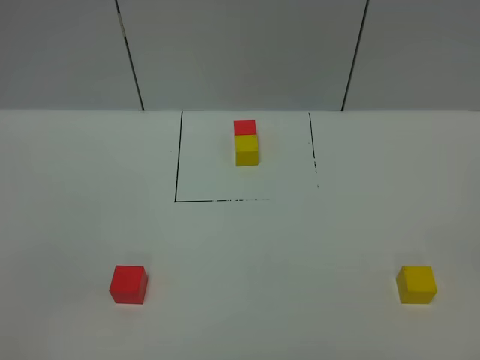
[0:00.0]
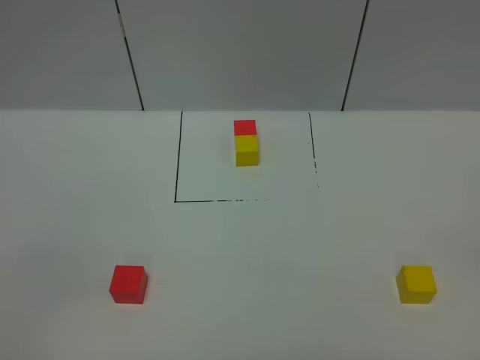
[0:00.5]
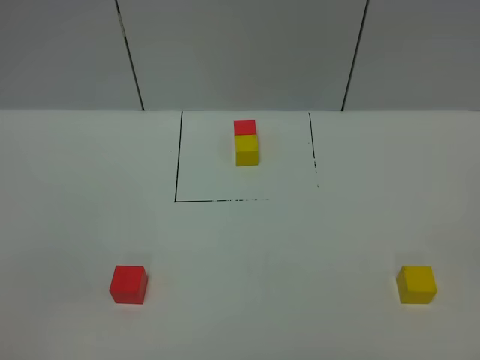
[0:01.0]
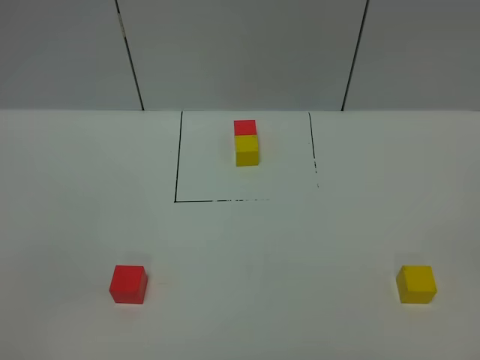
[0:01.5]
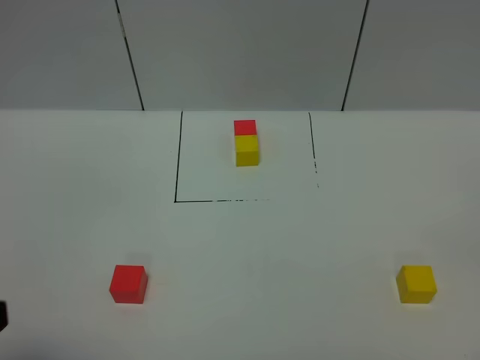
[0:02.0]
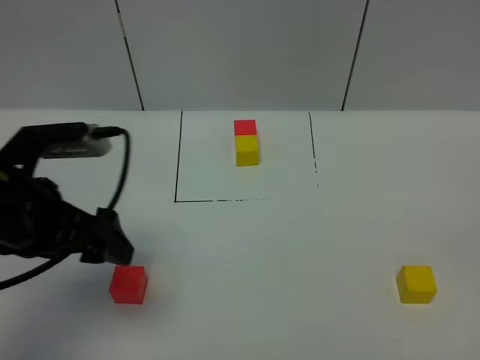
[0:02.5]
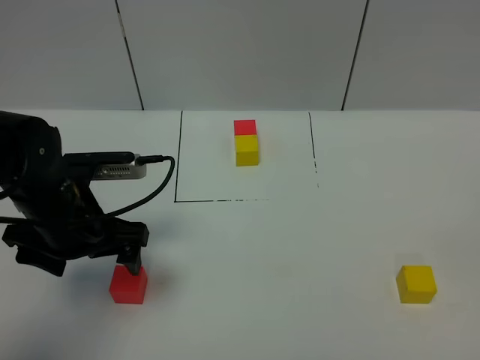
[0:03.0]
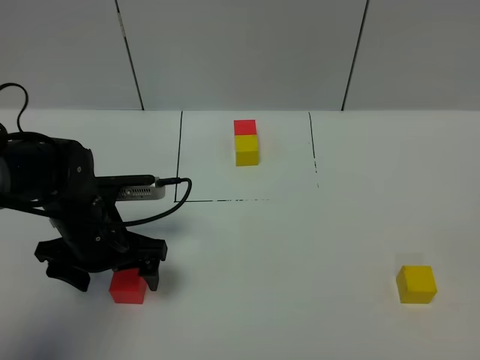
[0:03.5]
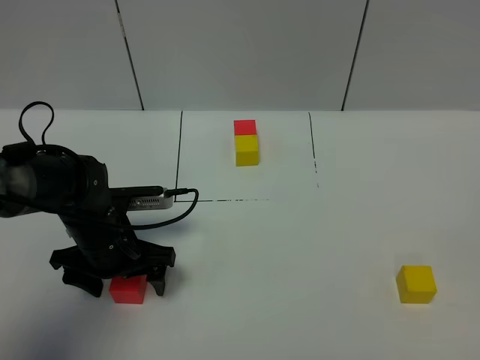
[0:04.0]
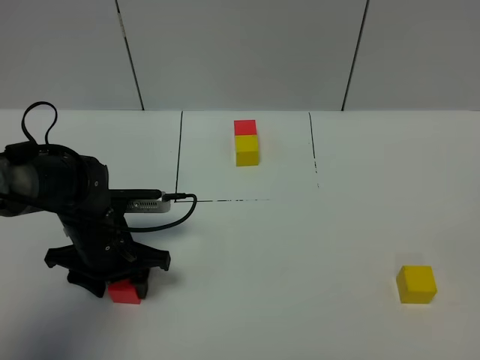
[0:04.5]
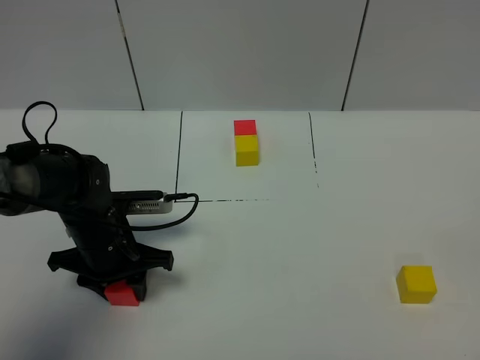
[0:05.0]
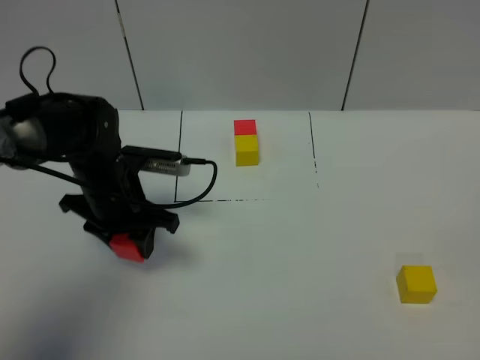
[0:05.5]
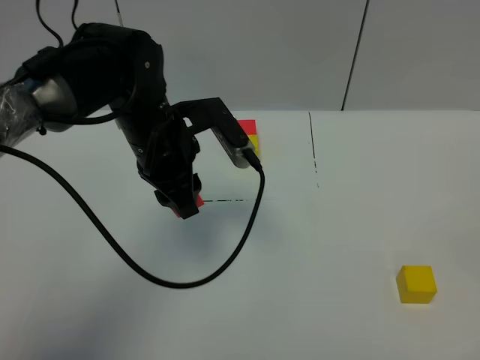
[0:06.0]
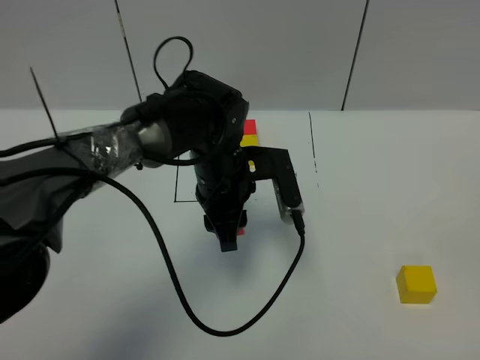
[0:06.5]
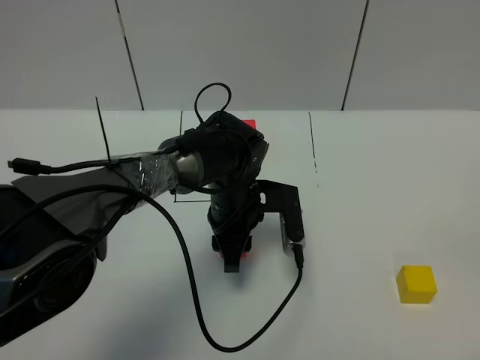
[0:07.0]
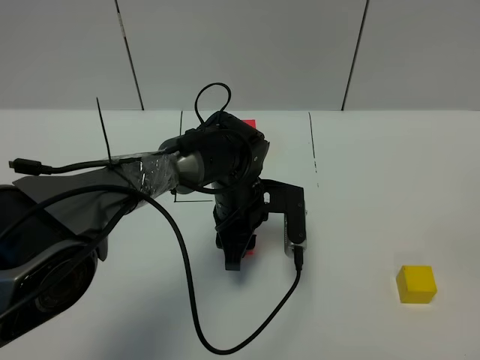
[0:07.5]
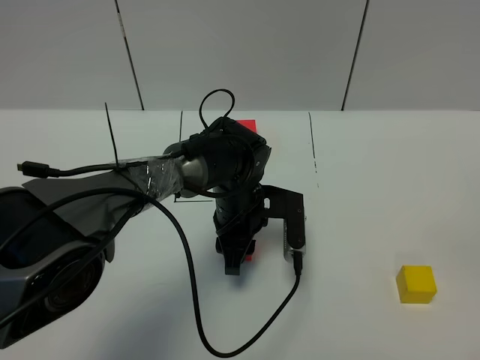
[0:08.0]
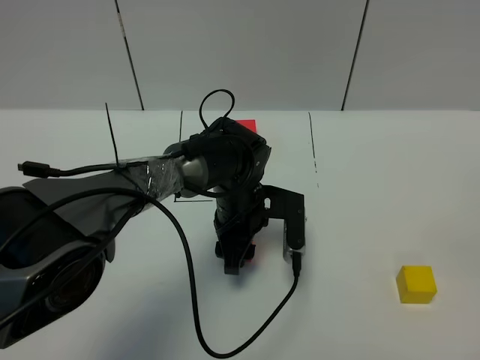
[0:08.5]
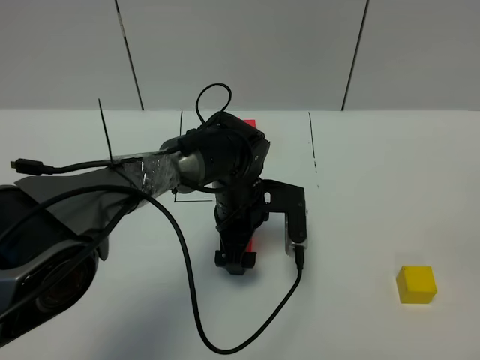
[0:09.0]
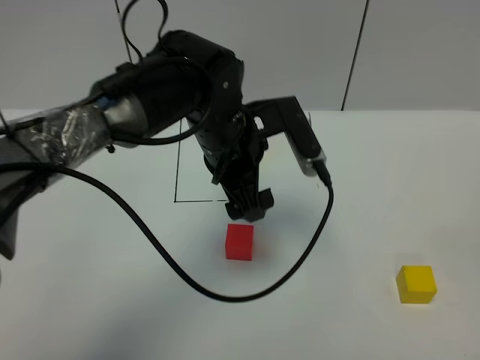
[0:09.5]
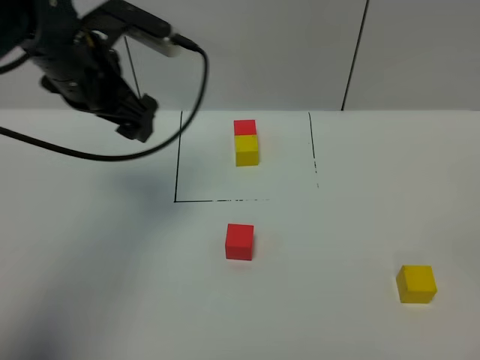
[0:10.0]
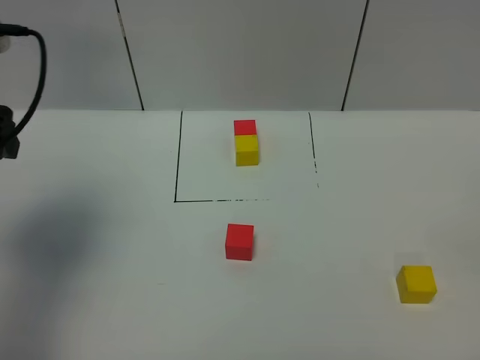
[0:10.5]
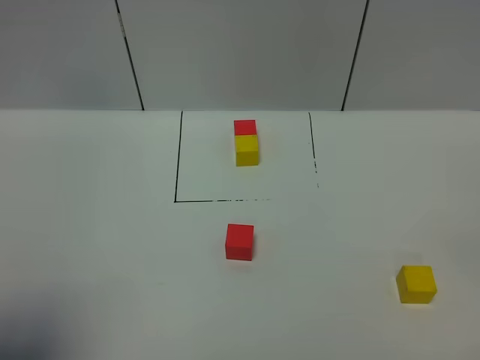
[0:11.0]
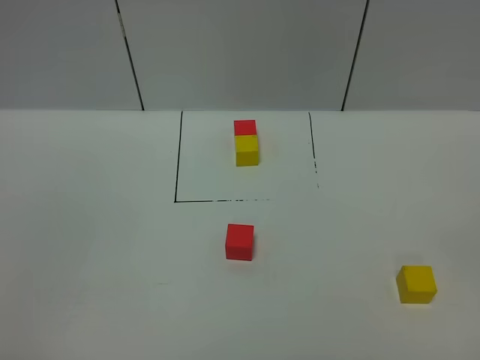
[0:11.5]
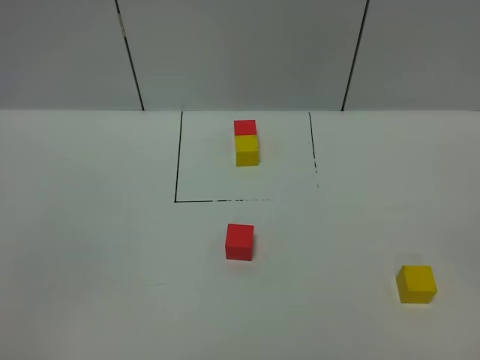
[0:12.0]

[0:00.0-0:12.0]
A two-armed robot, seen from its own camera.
Task of the whole recording: According to the building block template in front, assemble the scattered blocks together.
Step, 0:02.0 to 0:09.5: Put the red cube in the center of the table.
0:02.0 to 0:04.0: The left gripper is displaced forward and downward by approximately 35 cm.
0:04.0 to 0:06.0: The left gripper goes approximately 15 cm upward, to the right and forward, and closes up.
0:06.0 to 0:08.0: The left gripper moves downward and to the right, some 15 cm.
0:08.0 to 0:10.0: The left gripper is displaced upward and to the left by some 30 cm, and opens.
0:10.0 to 0:12.0: The left gripper goes about 40 cm backward.

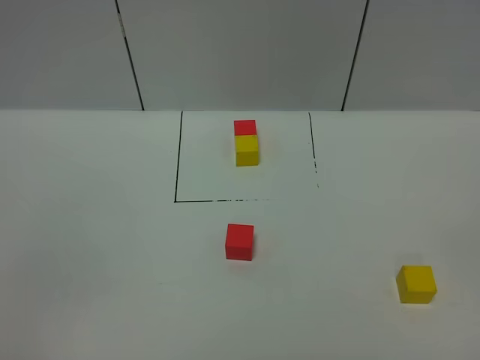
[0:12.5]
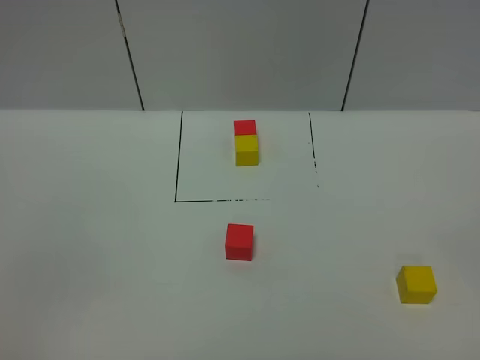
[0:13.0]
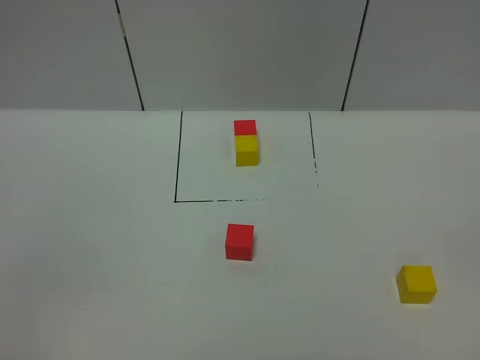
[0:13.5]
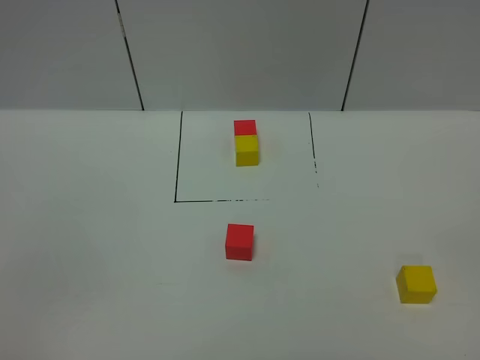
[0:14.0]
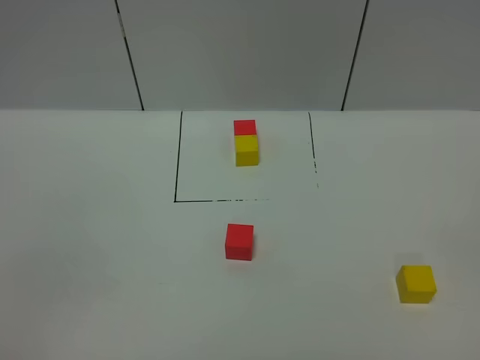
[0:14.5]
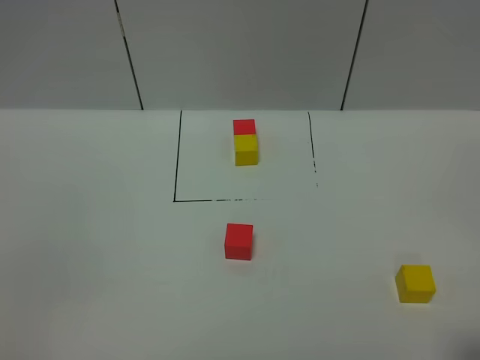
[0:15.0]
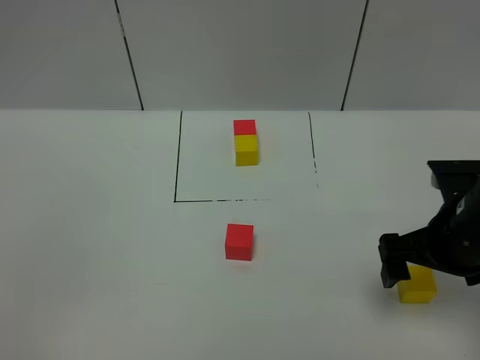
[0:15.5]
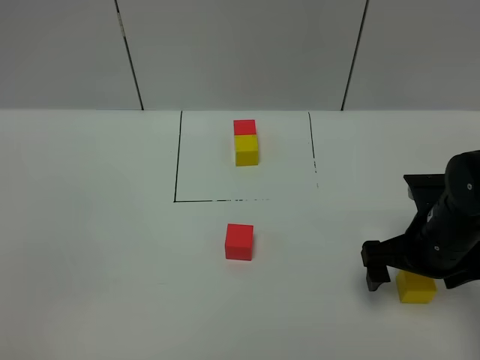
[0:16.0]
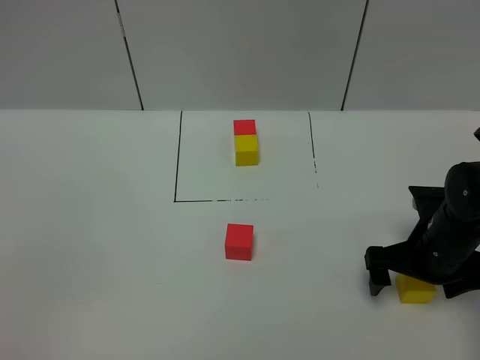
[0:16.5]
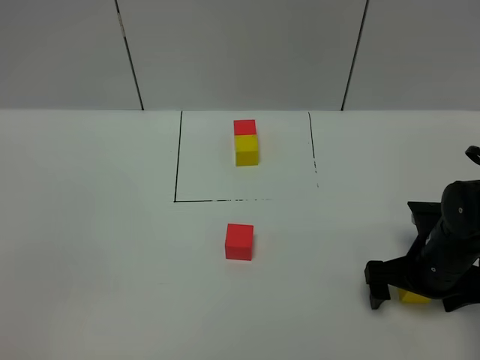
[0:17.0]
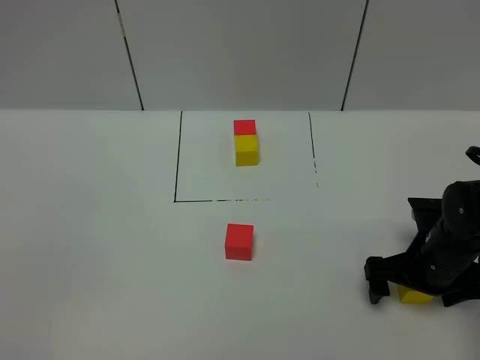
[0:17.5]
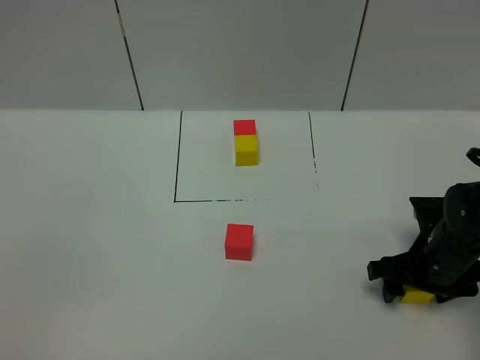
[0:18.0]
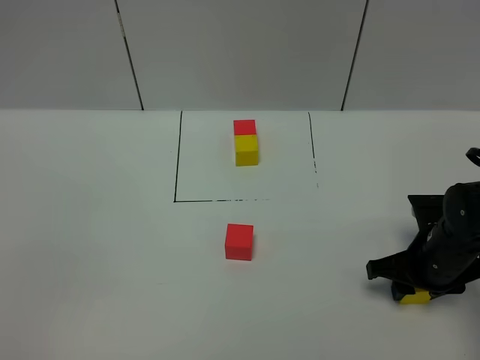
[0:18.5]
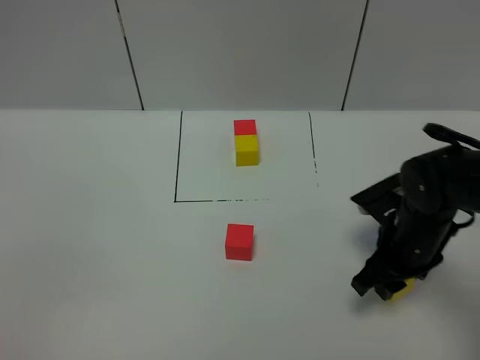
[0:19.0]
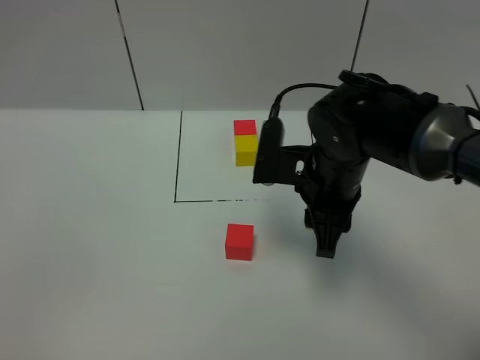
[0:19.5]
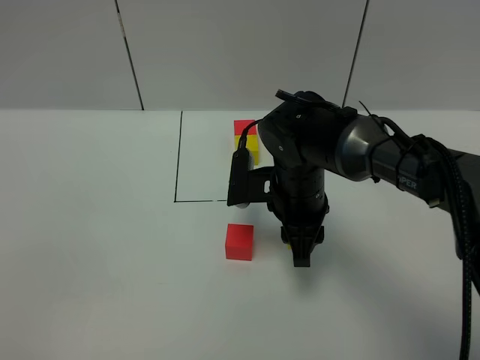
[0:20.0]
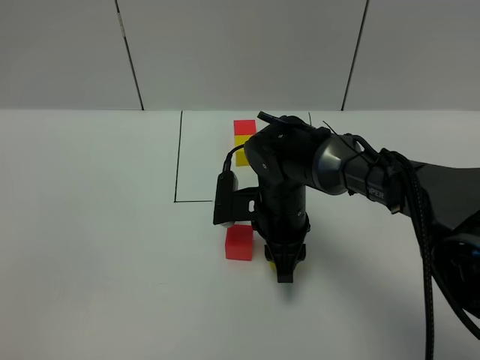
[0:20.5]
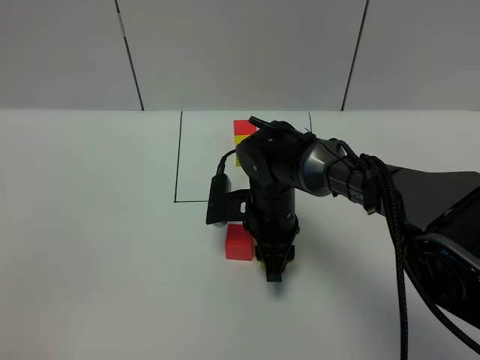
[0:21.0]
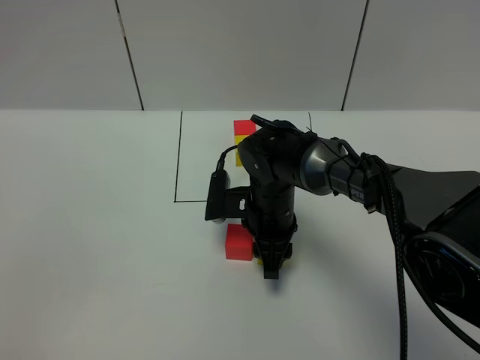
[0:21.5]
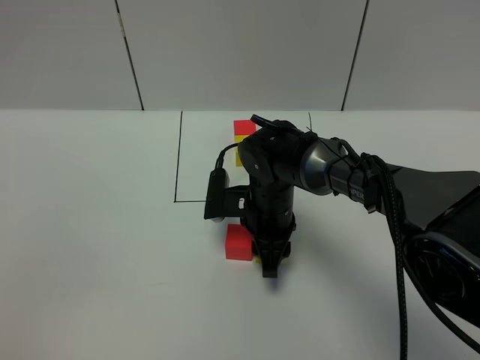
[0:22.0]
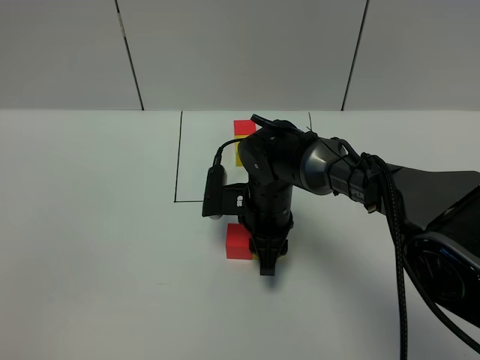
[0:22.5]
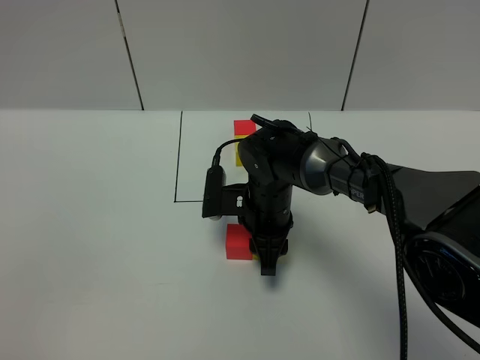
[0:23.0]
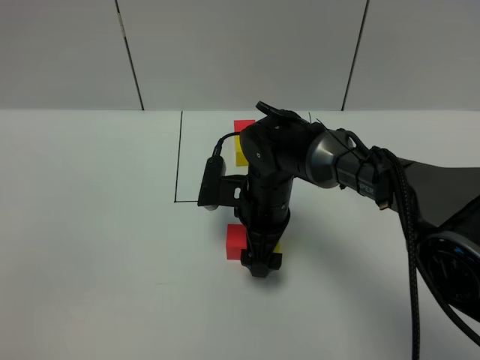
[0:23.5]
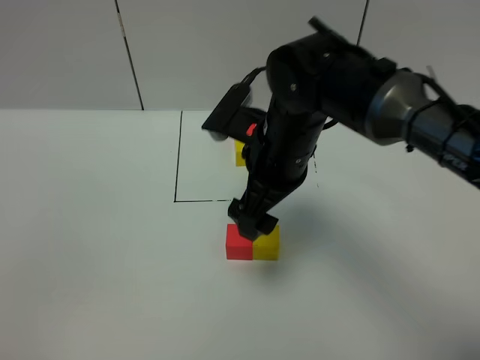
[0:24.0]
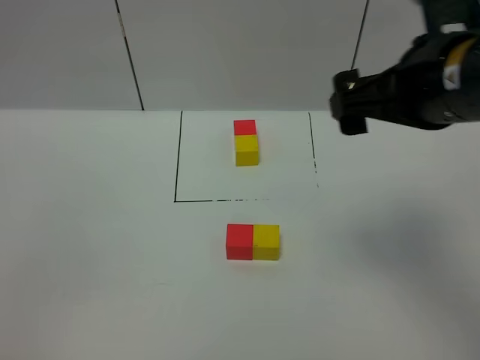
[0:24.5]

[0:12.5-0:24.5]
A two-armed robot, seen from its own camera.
Task of the whole recording: According to the building block template in front, assemble the scattered blocks together.
Step, 0:12.5 to 0:24.0: Put the yellow cube on the right of the red cube.
0:12.5 to 0:14.5: Neither gripper changes place.
0:14.5 to 0:16.5: The right gripper goes about 35 cm forward and downward.
0:16.5 to 0:18.5: The right gripper closes its fingers.
0:18.5 to 0:20.5: The right gripper travels to the left by some 20 cm.
0:20.5 to 0:22.5: The grippers make only small movements.
0:22.5 to 0:24.5: The right gripper travels upward, to the right and backward by some 35 cm, and opens its fingers.

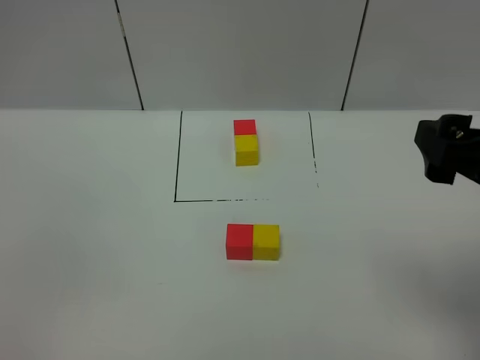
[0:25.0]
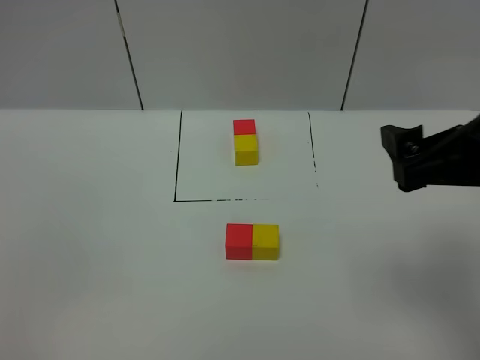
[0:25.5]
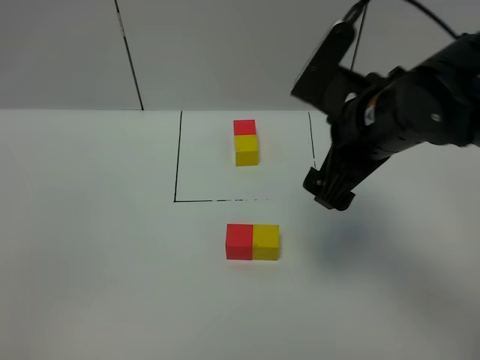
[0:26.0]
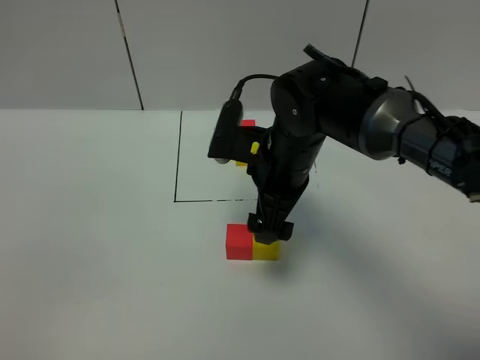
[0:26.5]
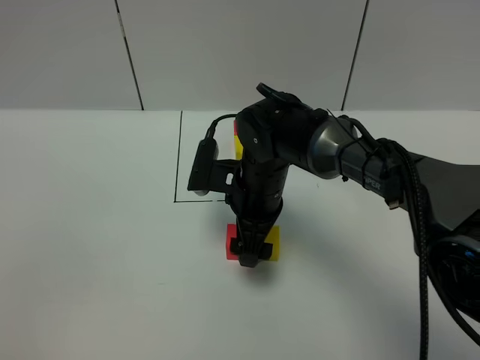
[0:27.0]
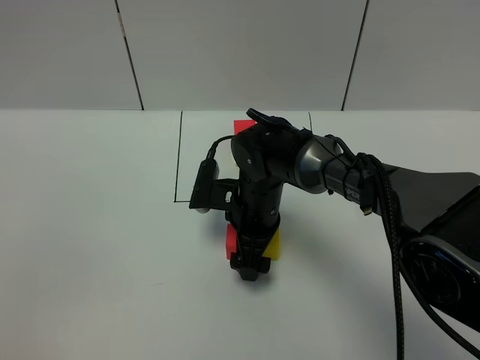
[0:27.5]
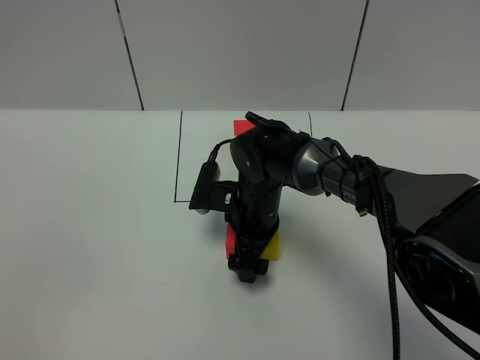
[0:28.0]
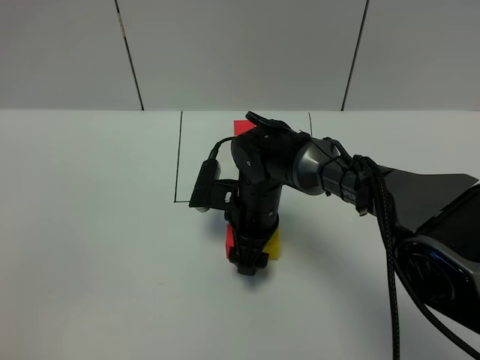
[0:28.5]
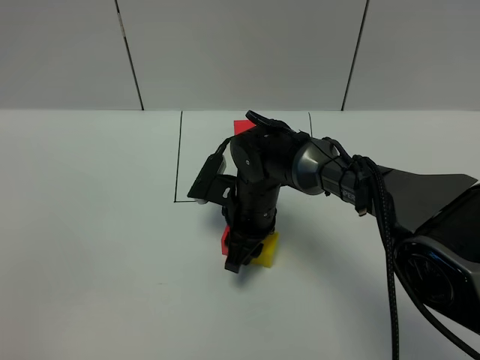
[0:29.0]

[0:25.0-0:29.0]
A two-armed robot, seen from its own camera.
Task of the whole recording: According to the building block template in front, assemble the scattered blocks together.
0:25.0 to 0:27.0: The right gripper heads to the left, downward and forward, covering about 35 cm.
0:27.0 to 0:29.0: The right gripper closes.
